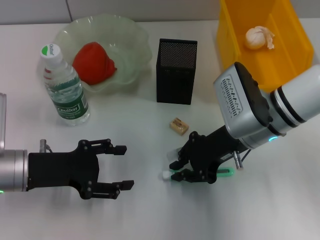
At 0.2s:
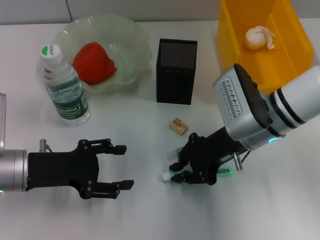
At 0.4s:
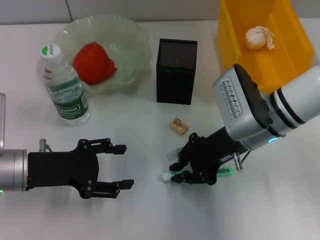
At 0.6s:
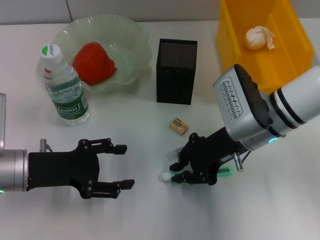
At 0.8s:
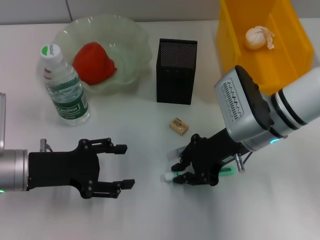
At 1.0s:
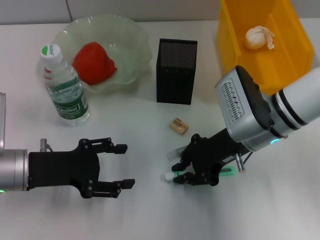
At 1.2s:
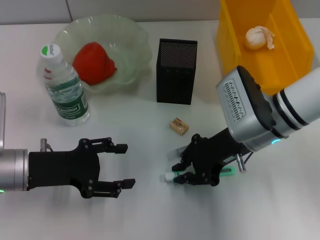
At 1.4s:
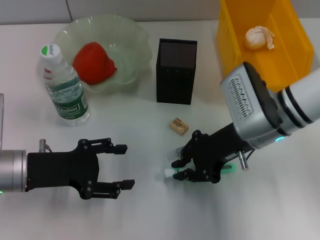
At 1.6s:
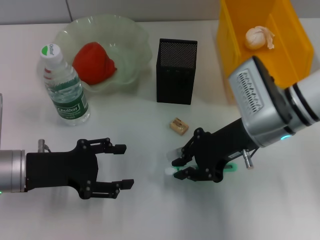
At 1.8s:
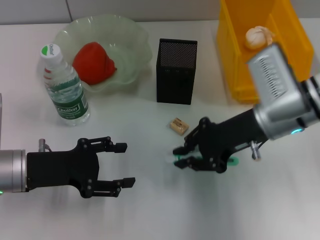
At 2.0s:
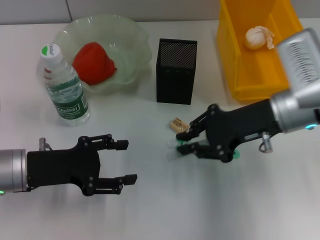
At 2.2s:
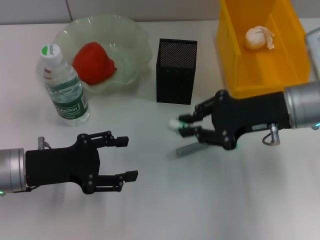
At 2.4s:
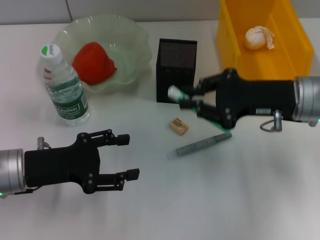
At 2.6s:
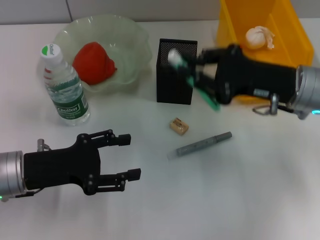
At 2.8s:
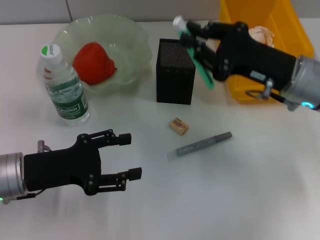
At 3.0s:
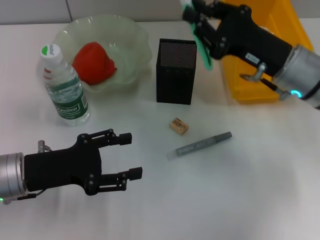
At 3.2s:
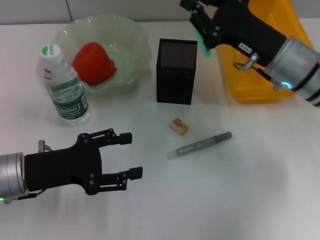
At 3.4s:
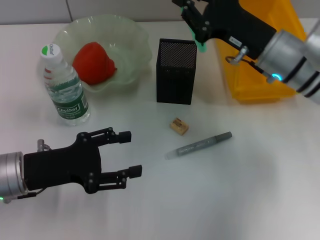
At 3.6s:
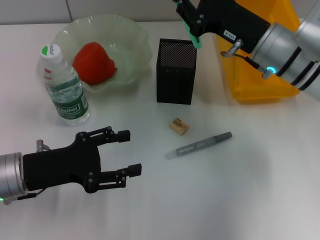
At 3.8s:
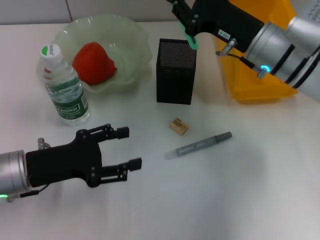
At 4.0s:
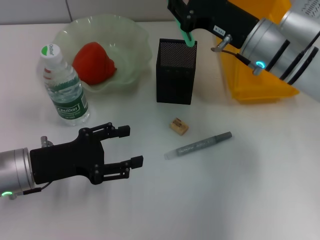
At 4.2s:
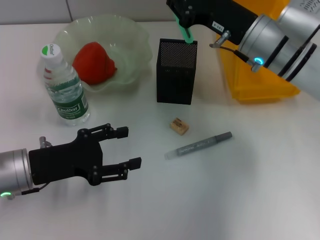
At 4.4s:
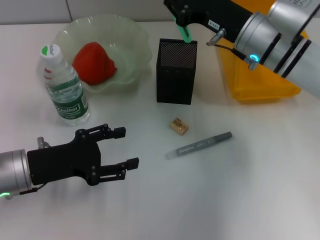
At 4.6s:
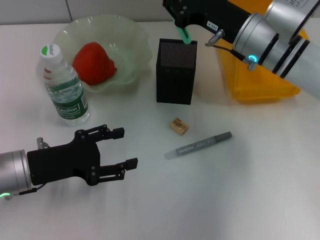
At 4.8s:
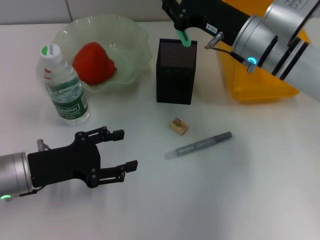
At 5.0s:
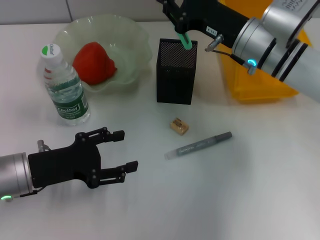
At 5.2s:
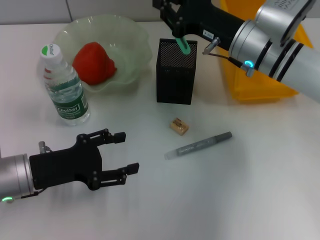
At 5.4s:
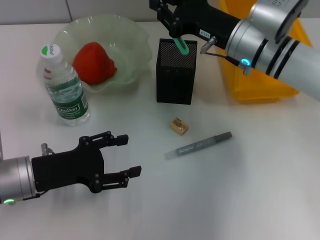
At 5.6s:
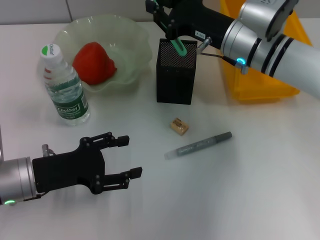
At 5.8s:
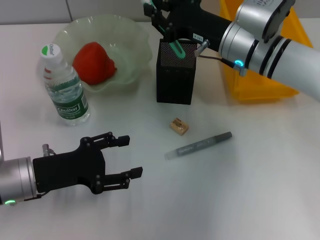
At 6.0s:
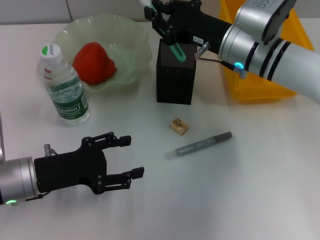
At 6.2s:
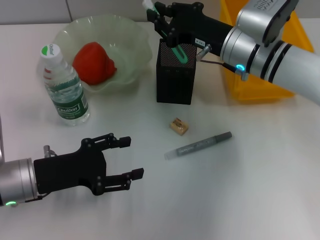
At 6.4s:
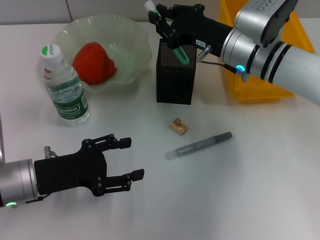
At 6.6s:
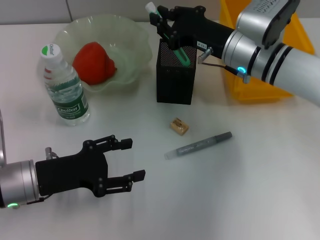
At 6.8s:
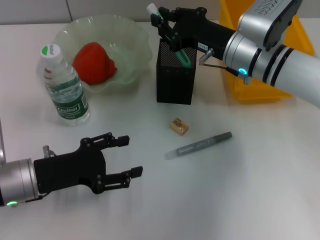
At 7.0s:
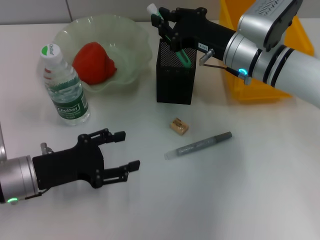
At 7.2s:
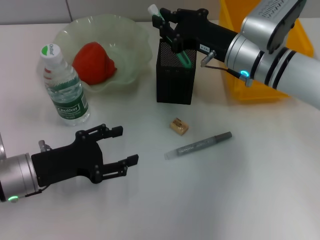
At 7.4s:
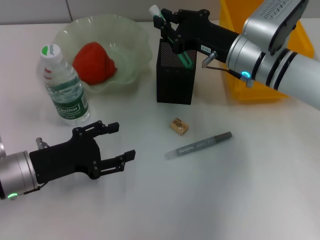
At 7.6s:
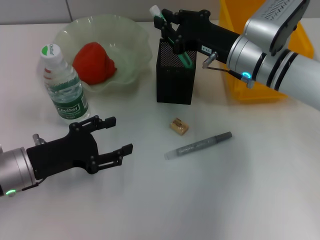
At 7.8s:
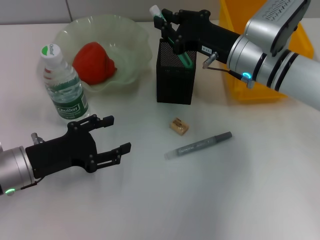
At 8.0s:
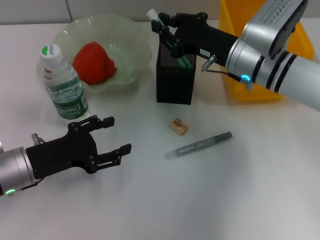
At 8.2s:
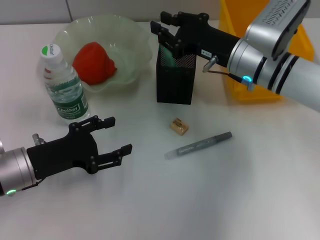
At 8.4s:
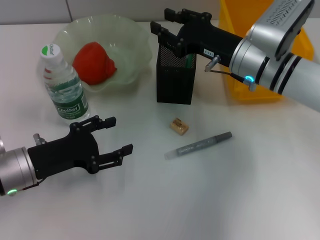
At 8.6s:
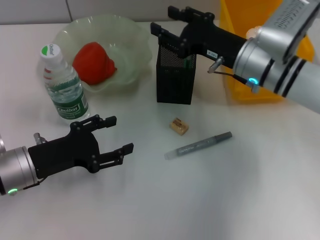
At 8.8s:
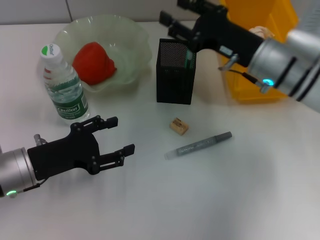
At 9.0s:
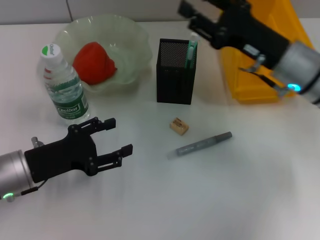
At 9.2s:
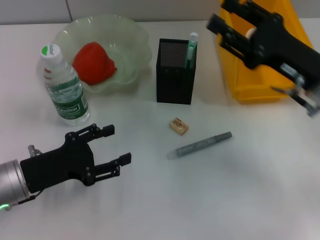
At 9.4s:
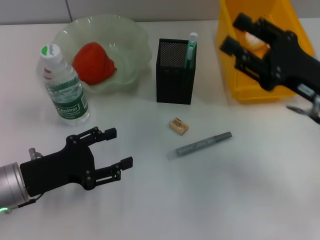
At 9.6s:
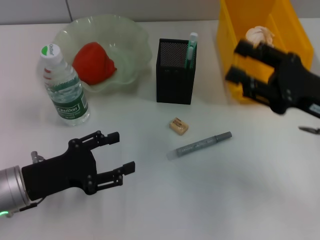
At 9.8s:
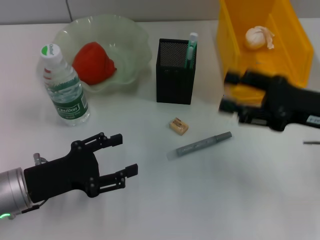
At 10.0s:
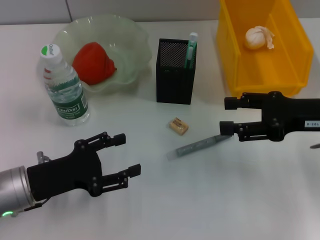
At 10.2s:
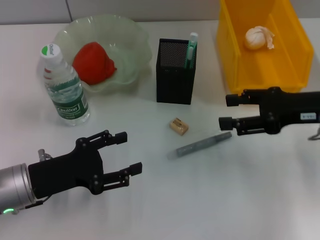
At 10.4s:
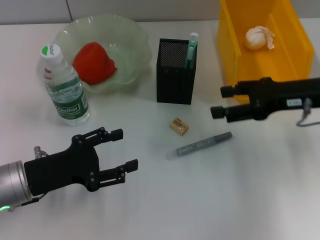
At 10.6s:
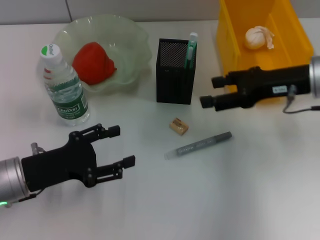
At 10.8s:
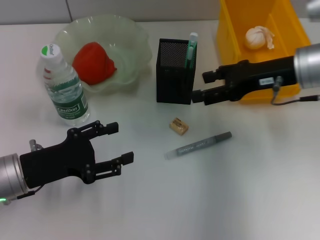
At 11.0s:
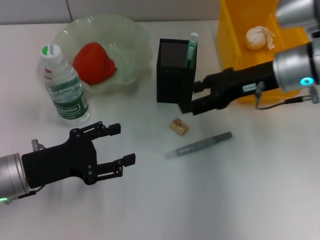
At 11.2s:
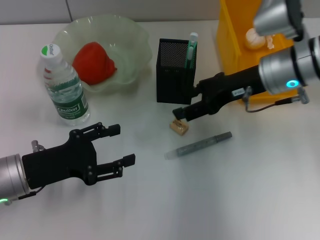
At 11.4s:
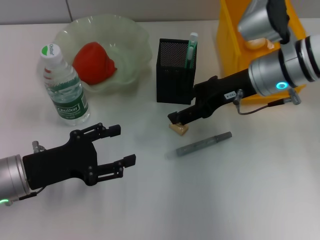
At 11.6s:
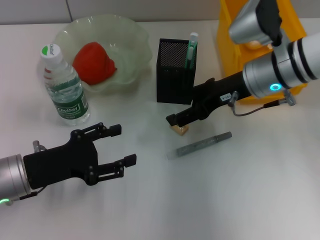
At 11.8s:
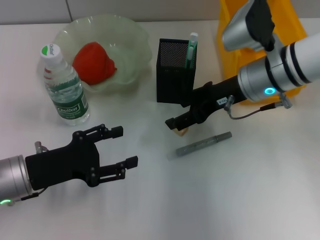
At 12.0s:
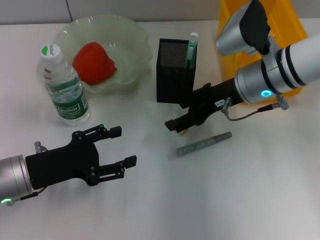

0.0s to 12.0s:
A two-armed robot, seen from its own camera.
Step, 1.4s to 8.6s: Place the blue utility knife into the pen holder with the right hand.
0.0s to 1.6s: The grippers stay close to where they were, moving slightly.
3.0s to 4.4s: The right gripper moves forward, about 5 cm.
4.4s to 7.6s: There are only small adjustments of the grippers.
7.6s to 9.0s: The right gripper heads to the right, covering roughly 5 cm, and opens up.
9.0s to 10.4s: The right gripper is displaced to the right by roughly 5 cm.
10.4s to 12.0s: The right gripper is displaced to the left by approximately 10 cm.

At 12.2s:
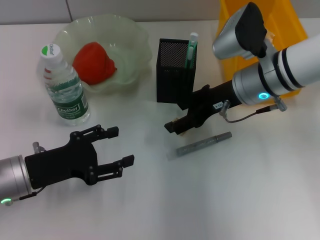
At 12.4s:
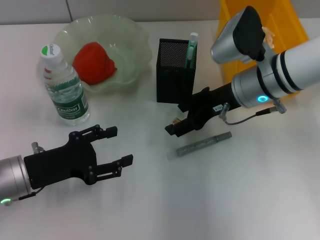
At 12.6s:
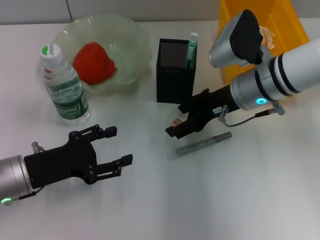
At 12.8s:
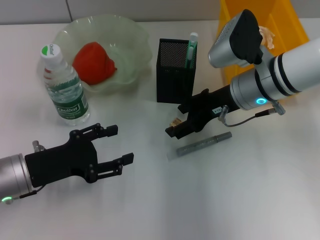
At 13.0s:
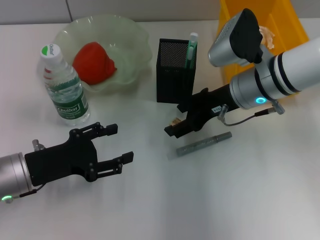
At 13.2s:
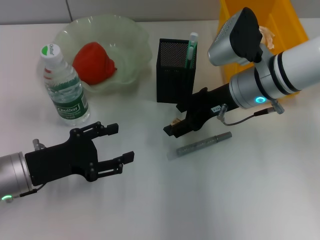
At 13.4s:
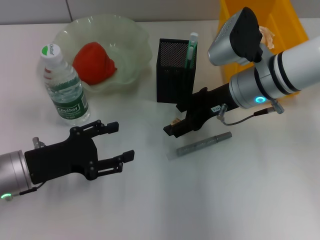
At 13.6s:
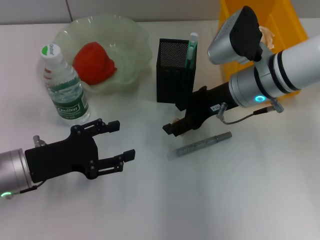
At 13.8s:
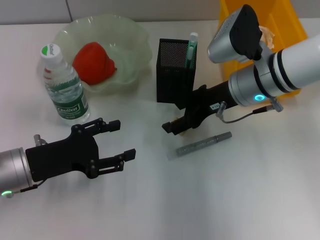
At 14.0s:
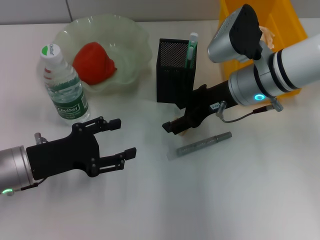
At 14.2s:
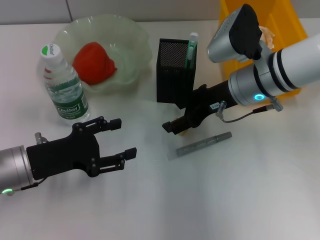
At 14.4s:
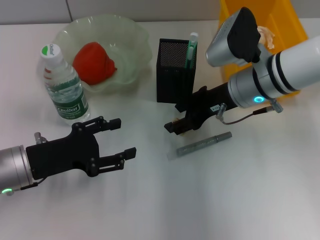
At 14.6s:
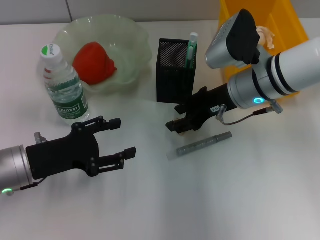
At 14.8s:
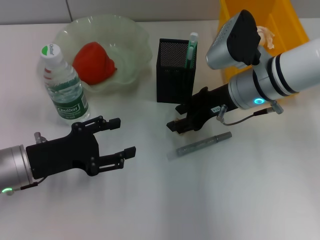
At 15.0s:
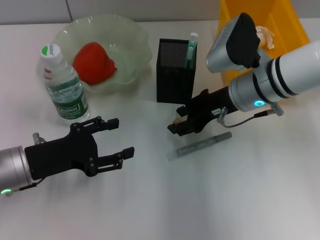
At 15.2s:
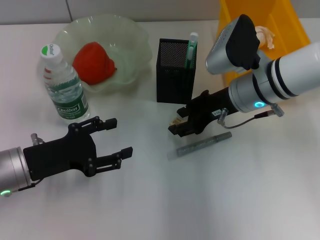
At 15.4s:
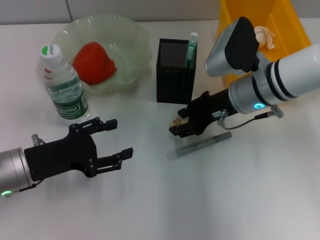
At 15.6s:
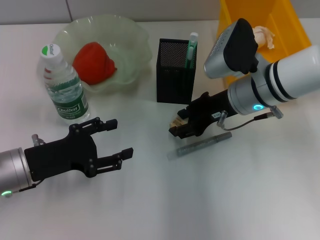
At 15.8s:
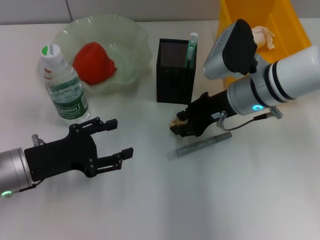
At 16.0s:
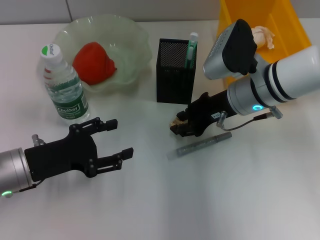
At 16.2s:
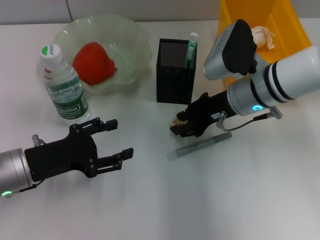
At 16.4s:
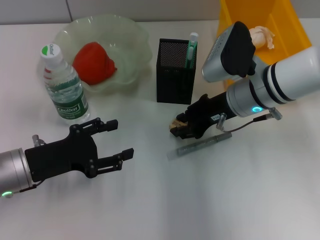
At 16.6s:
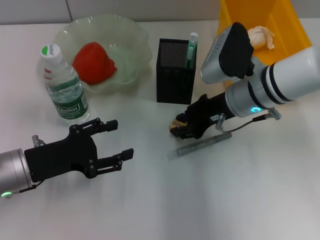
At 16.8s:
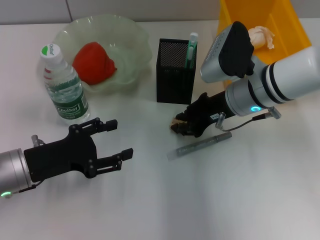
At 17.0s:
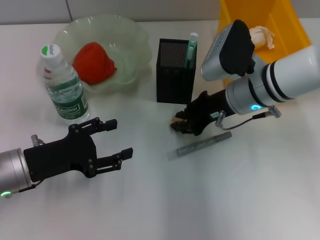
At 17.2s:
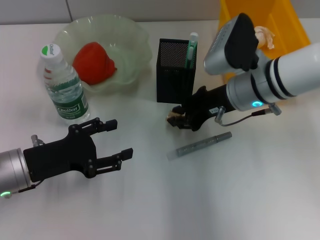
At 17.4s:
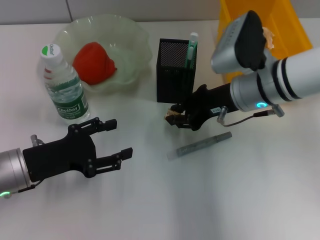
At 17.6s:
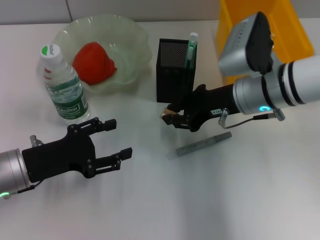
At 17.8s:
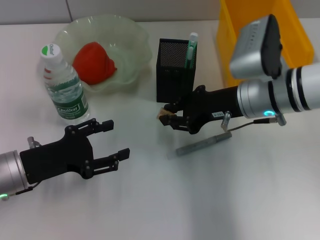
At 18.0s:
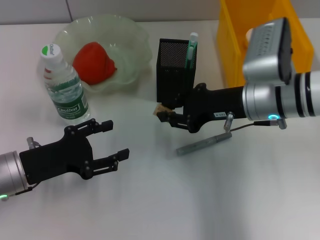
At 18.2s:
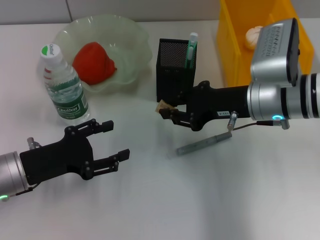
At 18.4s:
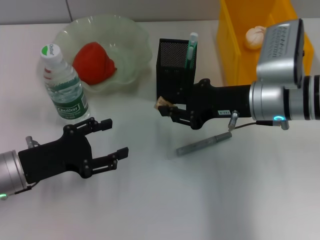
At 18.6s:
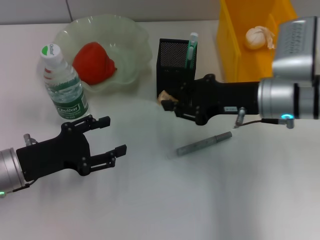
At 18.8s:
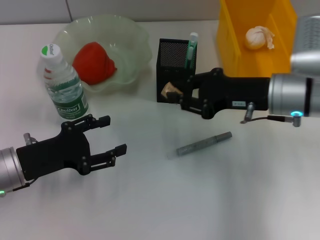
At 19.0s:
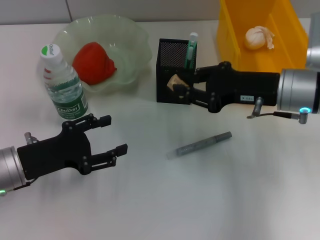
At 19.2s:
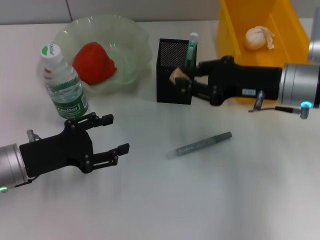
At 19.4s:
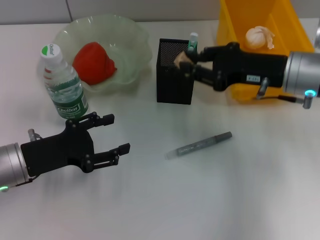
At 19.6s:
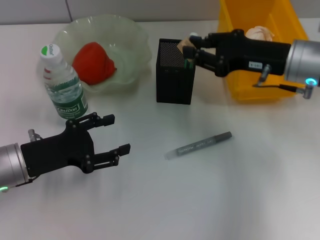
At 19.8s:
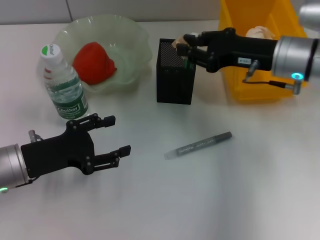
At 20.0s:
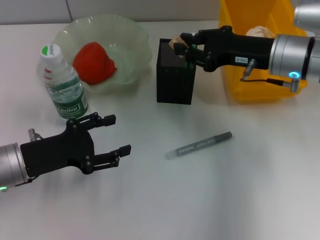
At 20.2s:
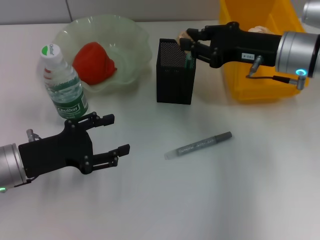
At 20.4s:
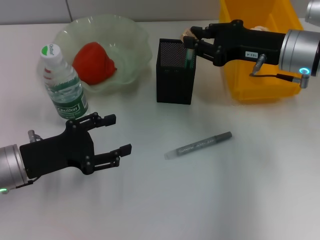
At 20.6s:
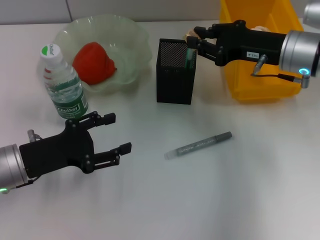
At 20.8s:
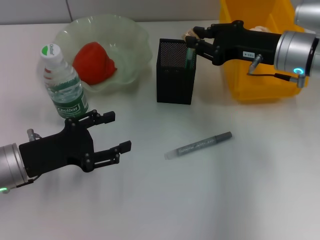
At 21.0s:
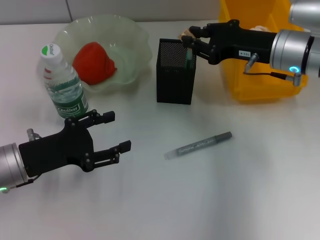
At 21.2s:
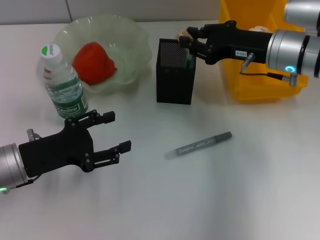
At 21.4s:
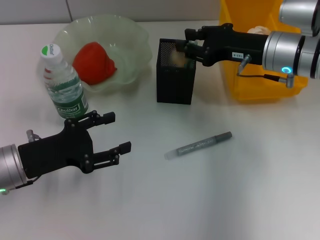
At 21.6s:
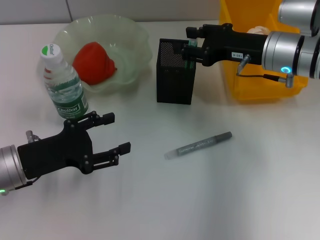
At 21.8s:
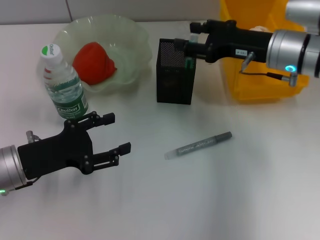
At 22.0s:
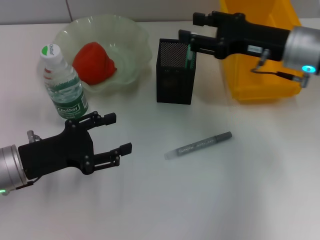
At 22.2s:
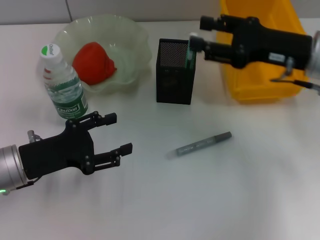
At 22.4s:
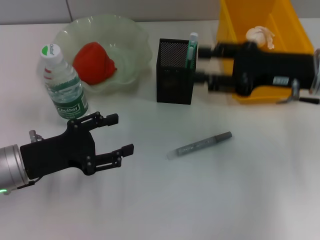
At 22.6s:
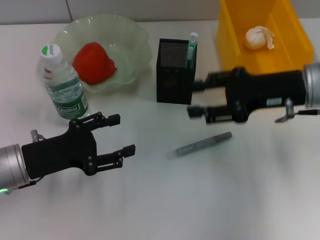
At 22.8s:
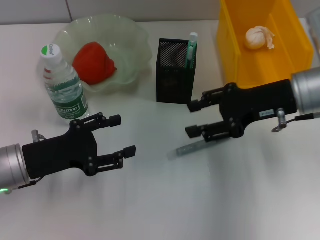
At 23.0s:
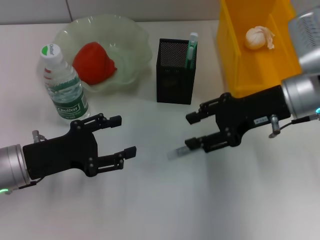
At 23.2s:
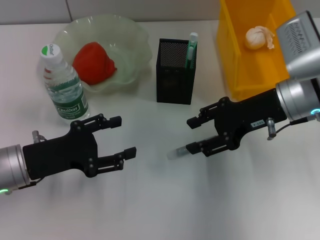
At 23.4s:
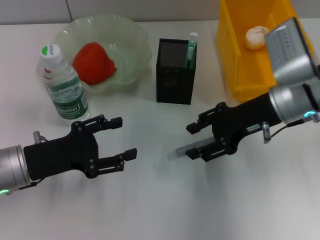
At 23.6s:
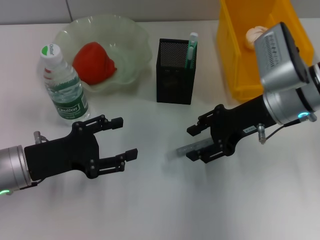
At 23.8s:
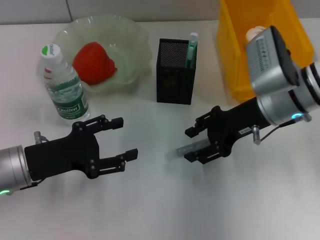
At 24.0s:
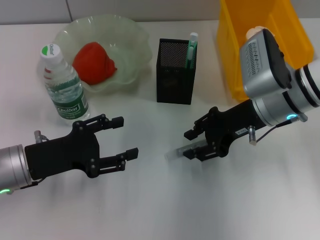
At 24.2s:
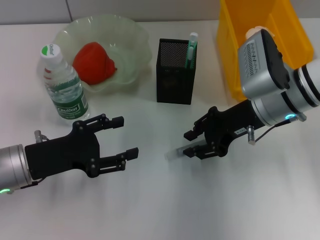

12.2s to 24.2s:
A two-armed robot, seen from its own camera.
Step, 12.2s to 17.4s: Grab the eraser with the right hand.
Step, 17.6s to 21.8s: Put the eraser into the pen holder with the right hand.
12.2s to 13.8s: Neither gripper changes place.
13.8s to 15.2s: The right gripper closes up.
15.2s to 16.6s: Neither gripper changes place.
18.2s to 19.8s: The right gripper ends up roughly 5 cm from where it was.
19.8s to 21.2s: The grippers move only a little.
21.2s to 22.6s: The right gripper moves backward, approximately 5 cm, and opens its fingers.
22.6s to 24.2s: The right gripper moves to the left, some 5 cm.
